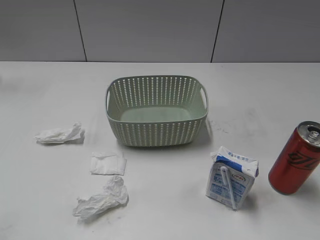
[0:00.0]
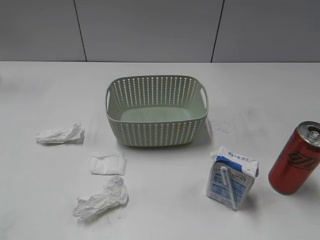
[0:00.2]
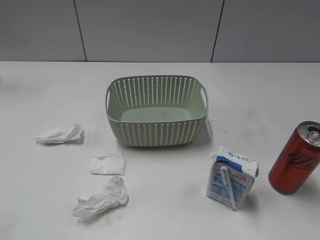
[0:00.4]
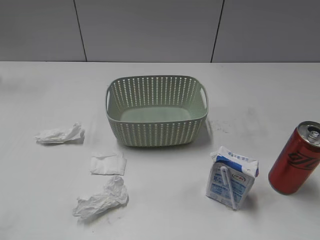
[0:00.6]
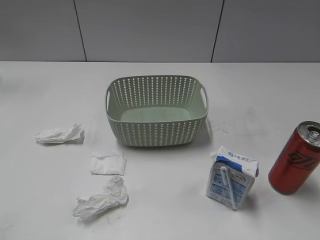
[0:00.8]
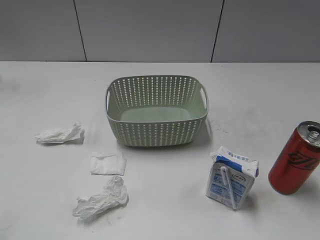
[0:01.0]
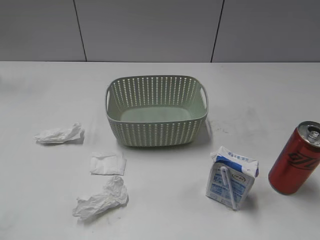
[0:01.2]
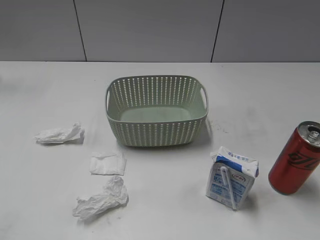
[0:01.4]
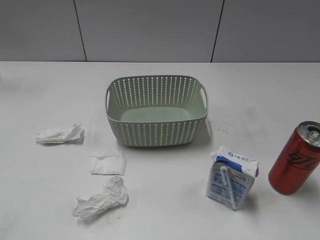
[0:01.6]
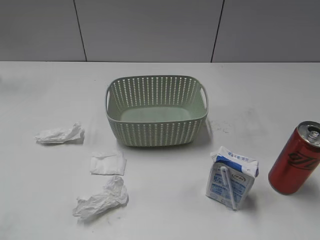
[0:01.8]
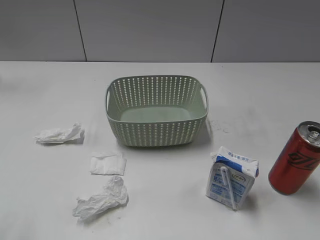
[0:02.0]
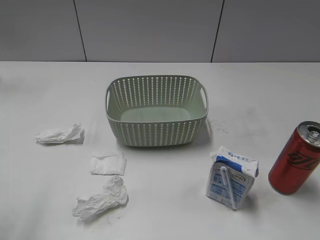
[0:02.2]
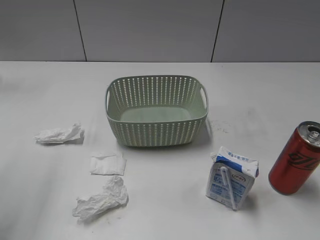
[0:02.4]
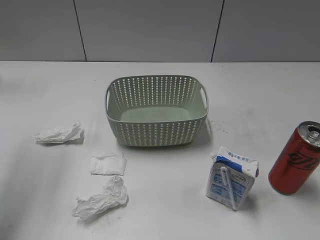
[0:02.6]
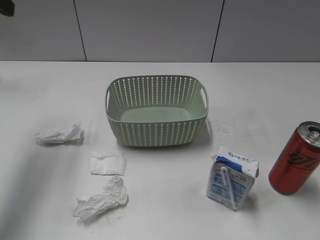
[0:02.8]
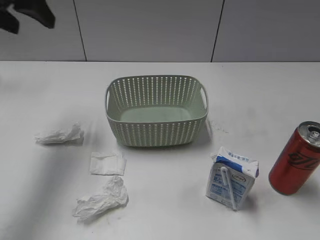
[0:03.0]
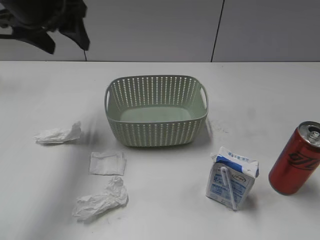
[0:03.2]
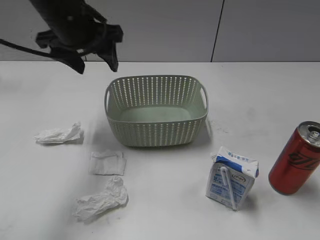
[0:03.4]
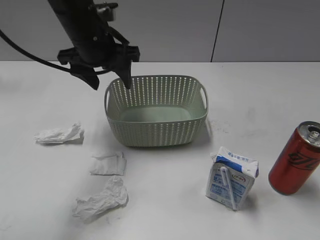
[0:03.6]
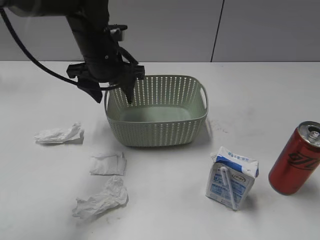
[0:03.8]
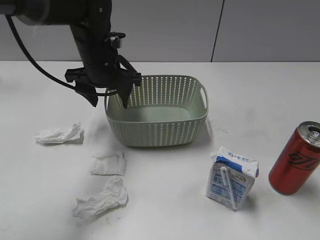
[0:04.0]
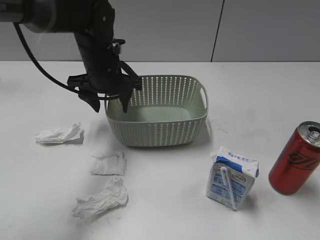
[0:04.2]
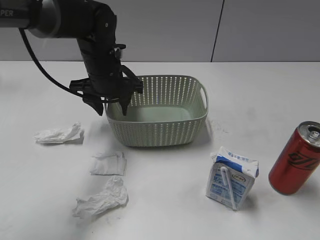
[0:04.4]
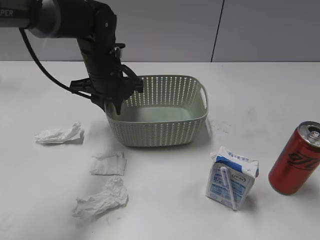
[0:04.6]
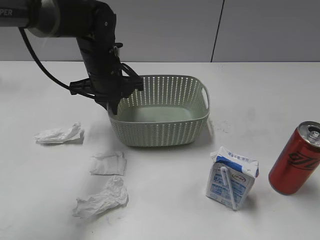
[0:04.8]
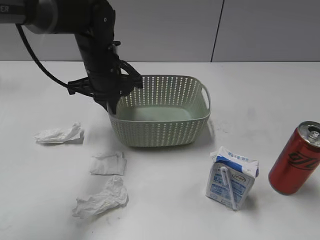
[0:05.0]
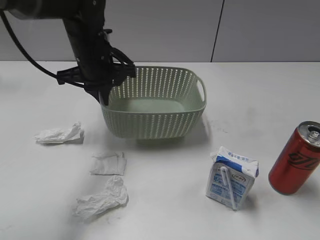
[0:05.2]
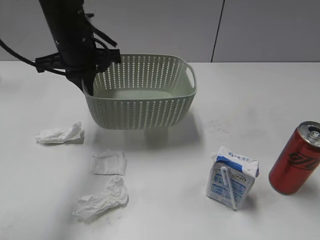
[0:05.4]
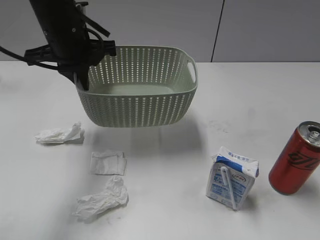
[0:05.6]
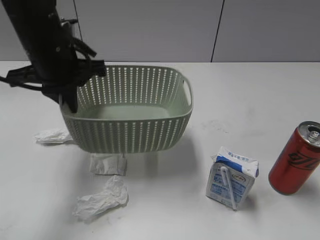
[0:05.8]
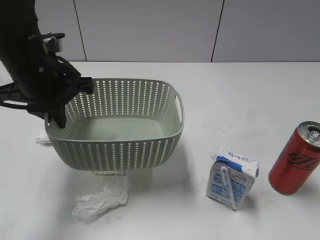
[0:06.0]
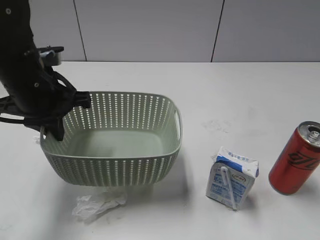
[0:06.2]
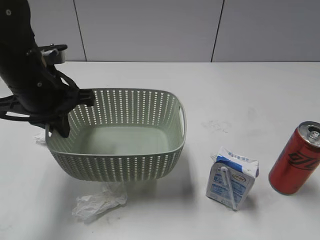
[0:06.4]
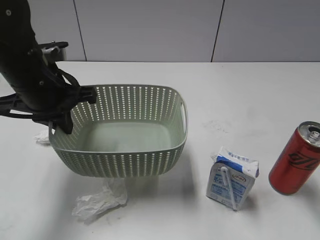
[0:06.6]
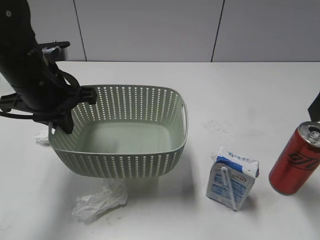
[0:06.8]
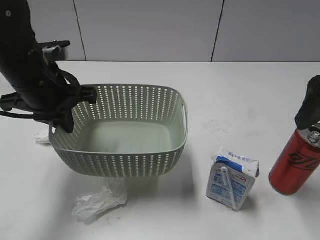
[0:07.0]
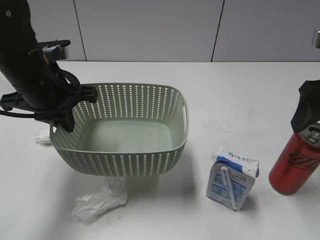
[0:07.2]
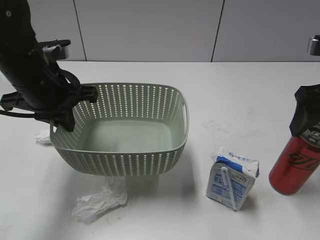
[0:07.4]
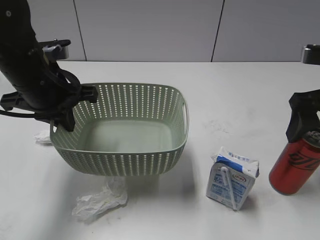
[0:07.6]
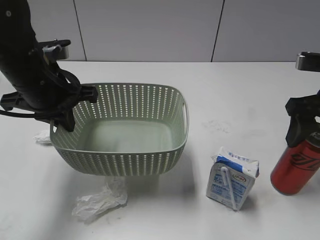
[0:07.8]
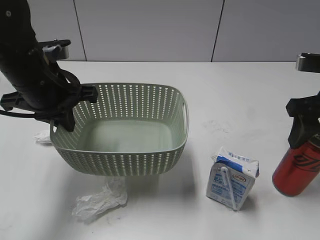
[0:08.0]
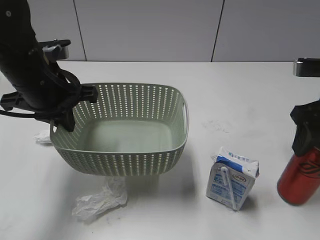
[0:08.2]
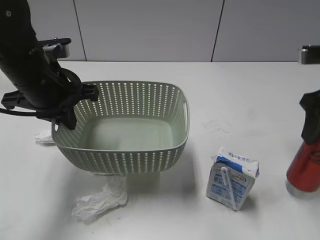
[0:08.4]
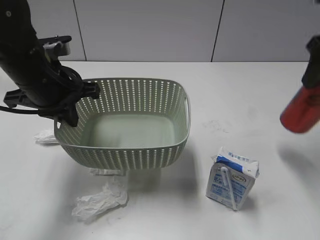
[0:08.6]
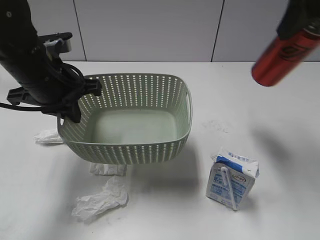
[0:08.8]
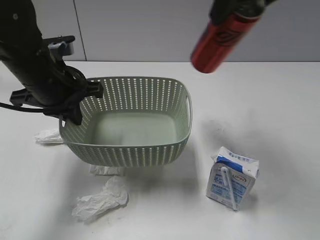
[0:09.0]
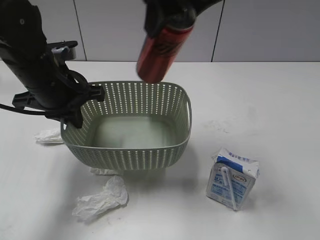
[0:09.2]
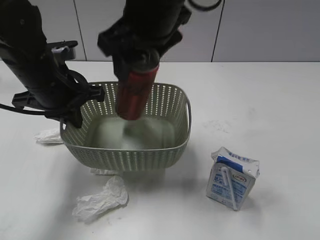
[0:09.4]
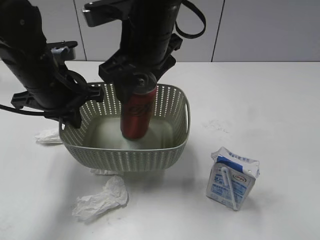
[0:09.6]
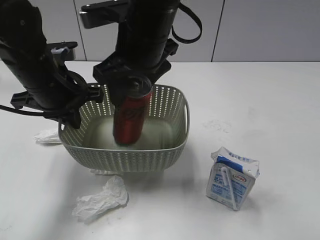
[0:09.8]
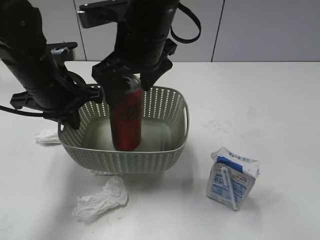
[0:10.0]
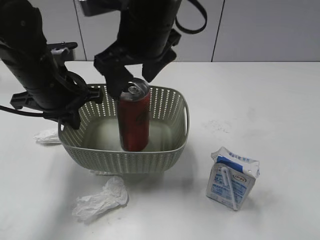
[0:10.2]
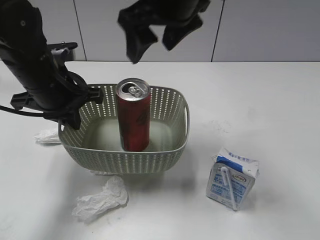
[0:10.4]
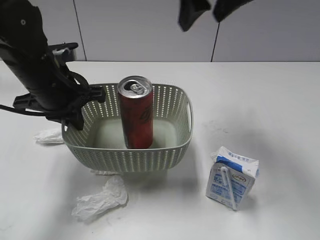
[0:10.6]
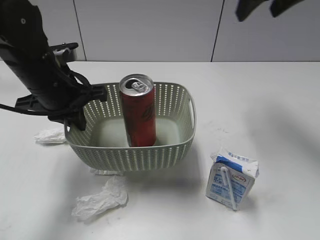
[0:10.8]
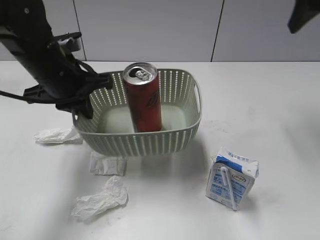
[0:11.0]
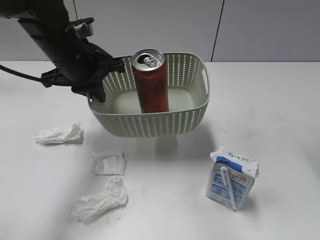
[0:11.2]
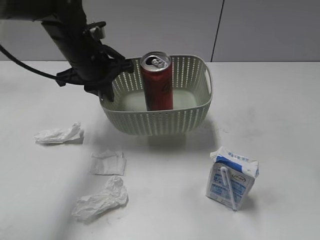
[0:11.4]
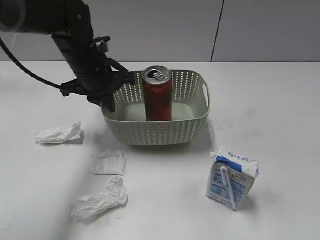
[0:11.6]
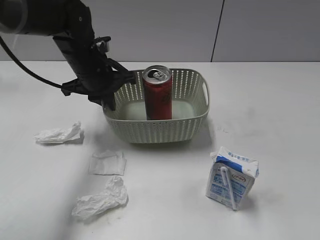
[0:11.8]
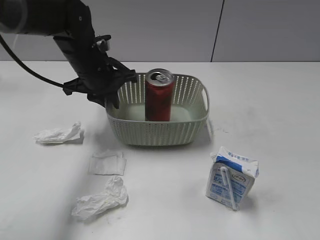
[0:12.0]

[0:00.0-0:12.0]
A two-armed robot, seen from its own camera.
Step, 0:02.6 to 0:04.8: Grasp the basket with left gripper.
Step, 0:05.0 to 0:06.6: Lift the basket with left gripper.
Step, 0:06.8 to 0:08.0: Grasp the cola can with right gripper.
Step, 0:08.2 to 0:10.2: Place the cola can in the basket with right gripper.
0:01.6 to 0:03.0: The left gripper heads forward, covering some 35 cm.
0:03.0 to 0:04.4: The left gripper shifts about 25 cm downward and to the right.
0:04.4 to 0:06.0: The left gripper heads backward, upward and to the left, covering some 15 cm, and closes.
0:06.0 to 0:07.6: The right gripper shifts roughly 25 cm forward, and opens its fingers.
0:07.6 to 0:09.0: The right gripper moves upward and to the left, some 20 cm, and closes up.
0:09.0 to 0:10.4: The right gripper is displaced to the left and downward by approximately 15 cm, and opens up.
0:10.4 to 0:12.0: The left gripper moves forward, roughly 10 cm. Meanwhile the right gripper goes roughly 35 cm to the right and backward.

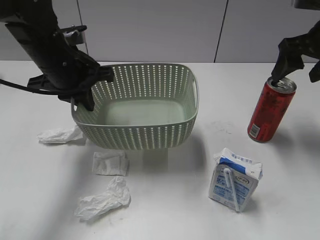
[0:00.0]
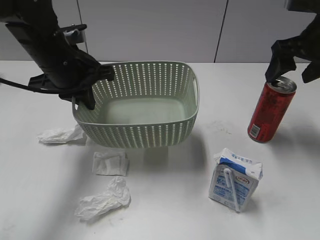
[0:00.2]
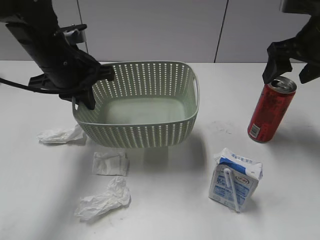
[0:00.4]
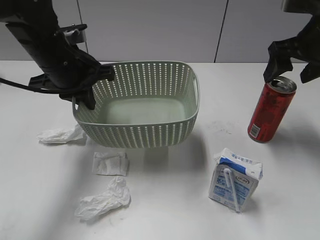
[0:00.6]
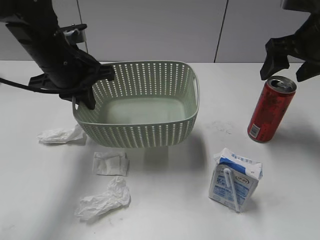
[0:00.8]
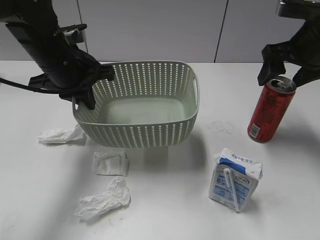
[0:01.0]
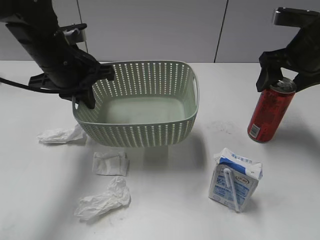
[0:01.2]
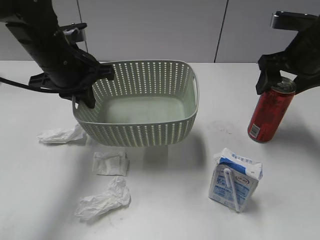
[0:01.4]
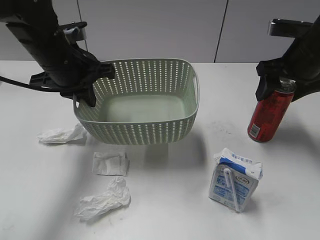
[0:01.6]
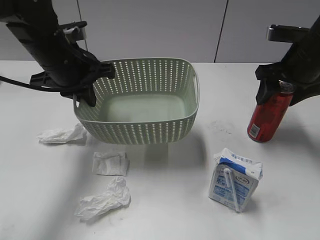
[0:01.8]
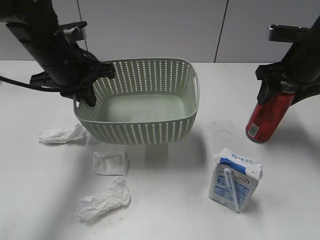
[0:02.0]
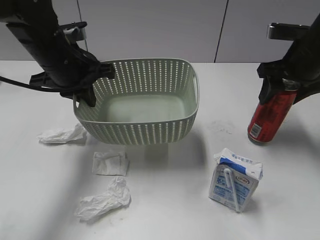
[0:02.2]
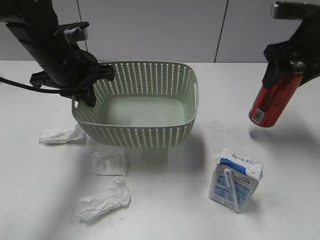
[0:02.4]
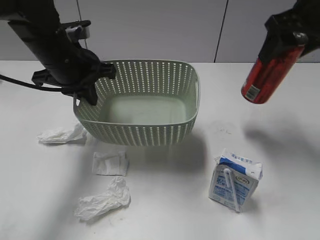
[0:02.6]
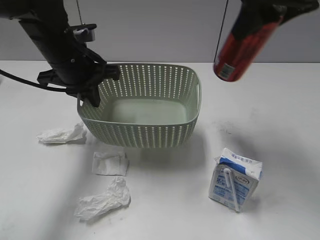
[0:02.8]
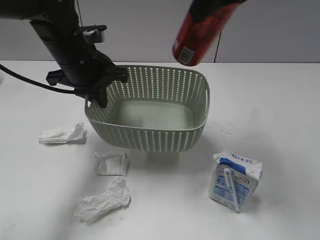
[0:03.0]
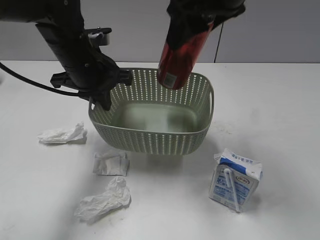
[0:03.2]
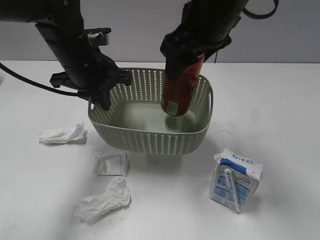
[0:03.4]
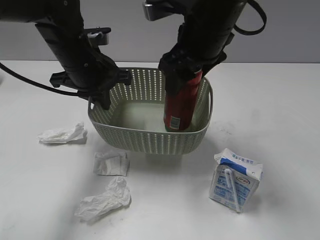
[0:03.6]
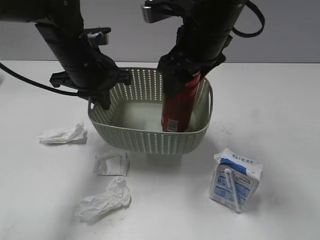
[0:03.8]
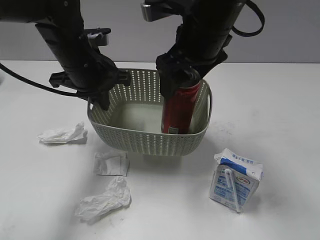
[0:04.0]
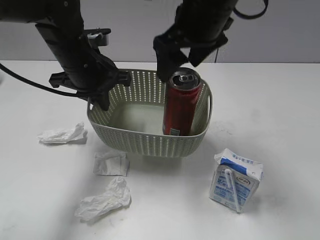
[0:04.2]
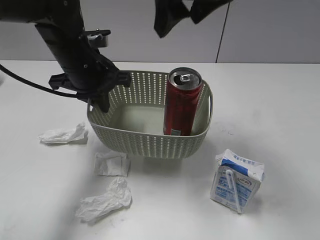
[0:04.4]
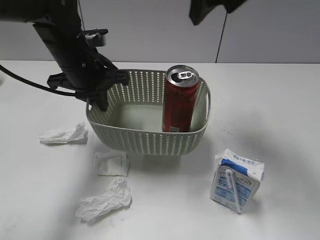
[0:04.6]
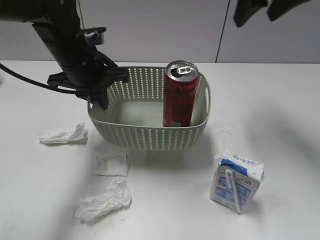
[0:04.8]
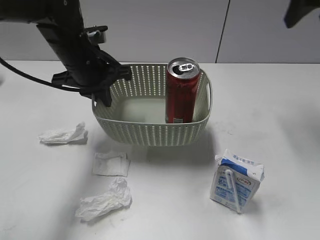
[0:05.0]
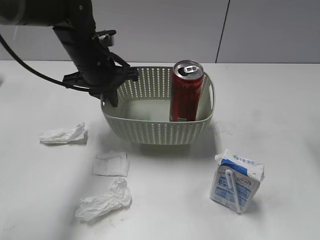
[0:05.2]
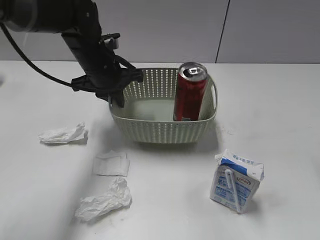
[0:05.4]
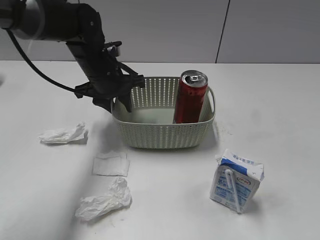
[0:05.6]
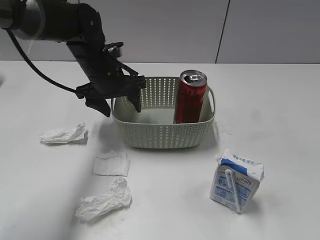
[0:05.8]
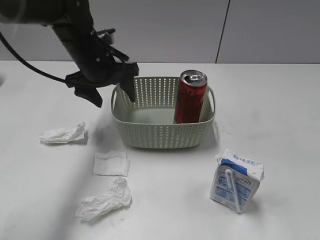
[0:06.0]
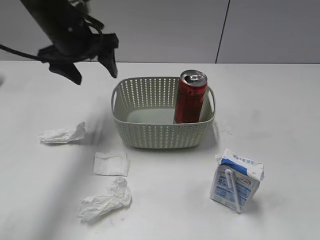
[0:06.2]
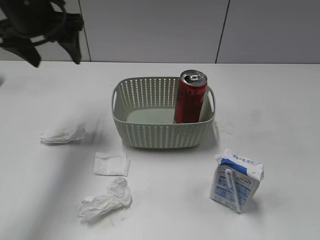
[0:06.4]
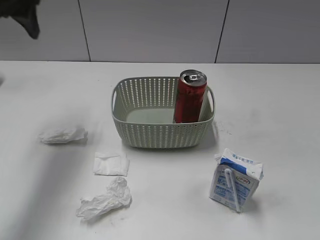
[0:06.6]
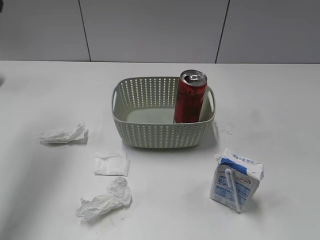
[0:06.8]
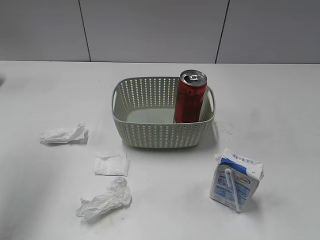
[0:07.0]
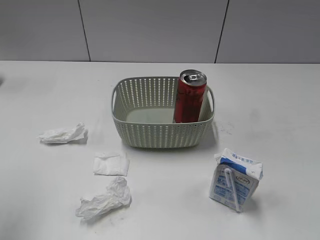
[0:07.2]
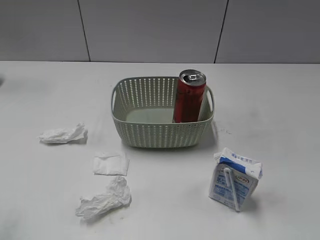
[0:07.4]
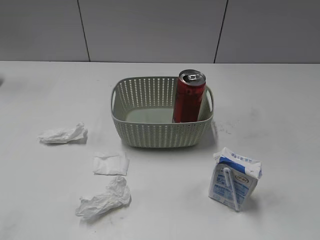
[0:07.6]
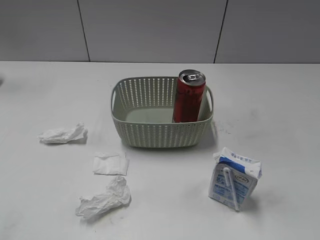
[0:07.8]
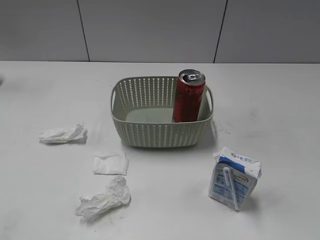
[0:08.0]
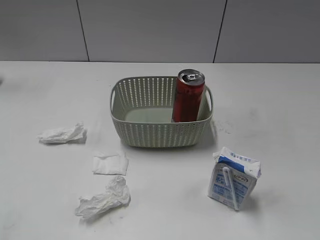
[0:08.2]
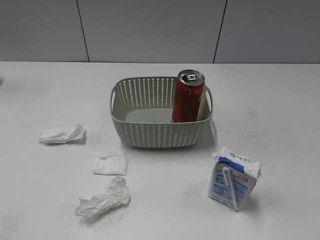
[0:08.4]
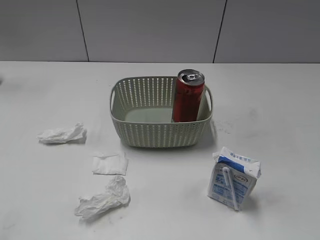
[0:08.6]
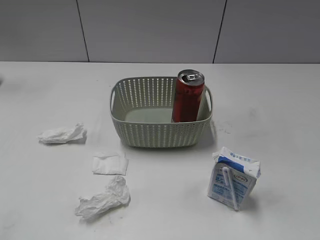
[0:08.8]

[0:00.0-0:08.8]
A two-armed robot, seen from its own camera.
Step, 0:00.0 to 0:02.0: Grasp the cola can with right gripper.
Step, 0:02.2 to 0:04.2: Place the cola can in the basket with right gripper.
Step, 0:04.4 to 0:06.0: Place the basket on the table with left gripper.
0:00.0 to 0:01.4: The grippers stay close to where they were, moving slightly.
0:01.4 to 0:03.0: The right gripper shifts about 20 cm upward, to the left and backward, and closes.
0:03.0 to 0:04.4: The right gripper heads to the left, covering roughly 5 cm, moves approximately 10 cm downward and comes back, and opens up.
0:04.4 to 0:05.8: The left gripper changes place by approximately 5 cm, and opens up; the right gripper goes some 30 cm to the right and backward.
0:05.8 to 0:07.4: The right gripper shifts approximately 15 cm backward and downward, while the left gripper is displaced backward, upward and to the left by about 40 cm.
0:07.4 to 0:08.8: The left gripper travels backward and downward by some 15 cm.

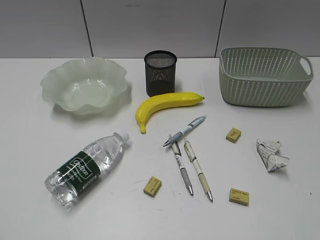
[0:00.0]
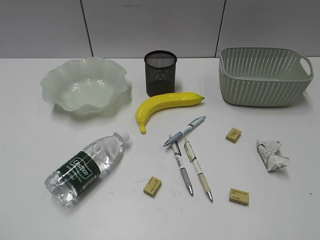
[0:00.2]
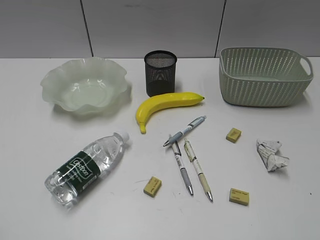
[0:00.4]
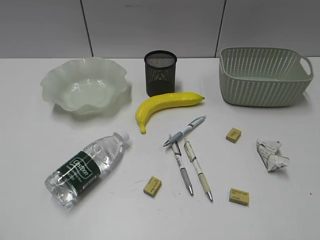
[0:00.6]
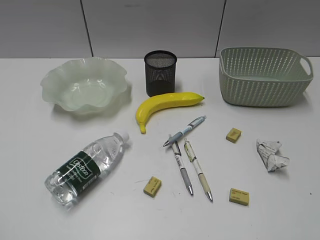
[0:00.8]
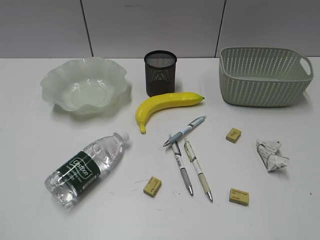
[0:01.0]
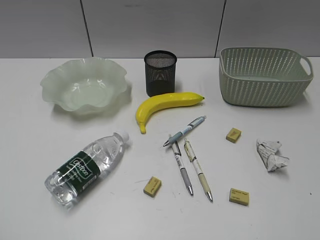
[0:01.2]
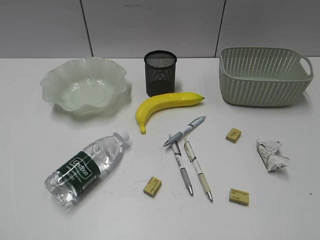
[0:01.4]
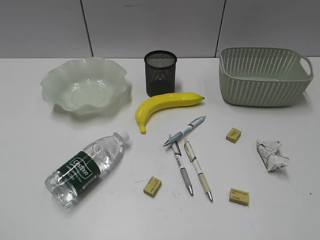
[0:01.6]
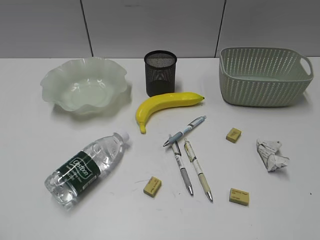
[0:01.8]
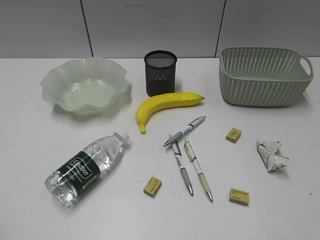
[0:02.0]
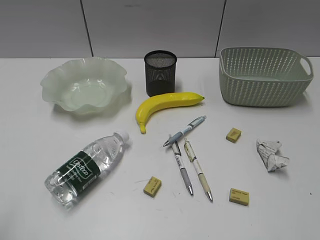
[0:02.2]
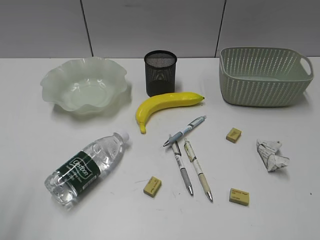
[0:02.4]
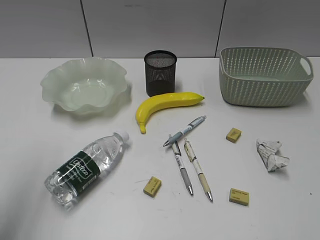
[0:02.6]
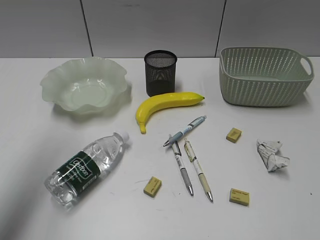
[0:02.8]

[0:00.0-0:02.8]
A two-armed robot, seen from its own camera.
0:01.4 to 0:02.8: The left gripper is displaced forward by about 25 cm.
